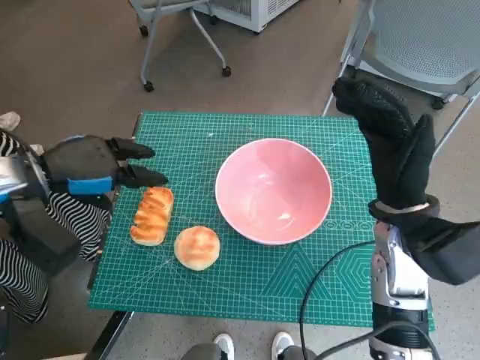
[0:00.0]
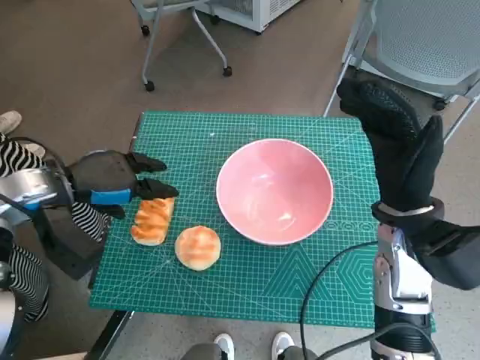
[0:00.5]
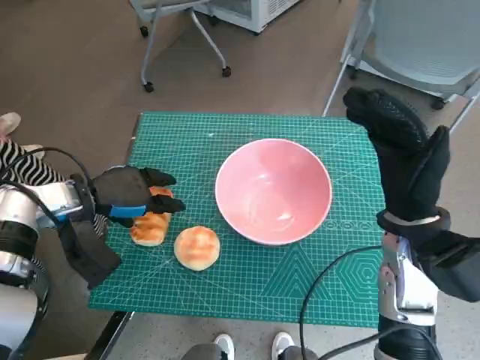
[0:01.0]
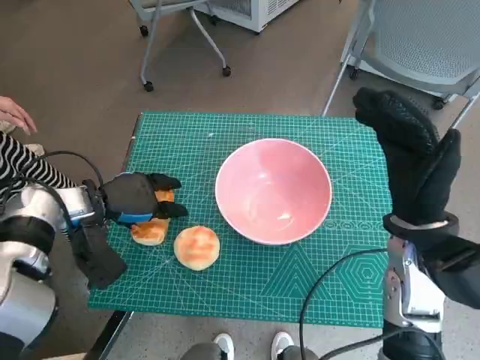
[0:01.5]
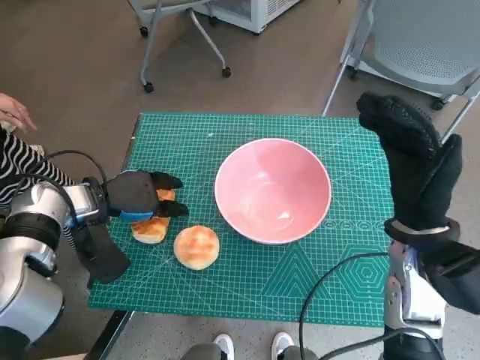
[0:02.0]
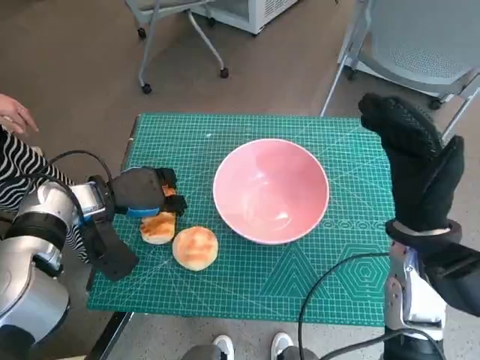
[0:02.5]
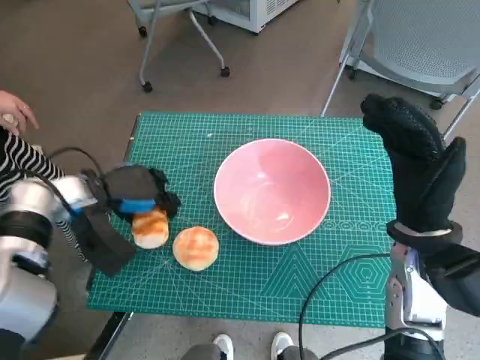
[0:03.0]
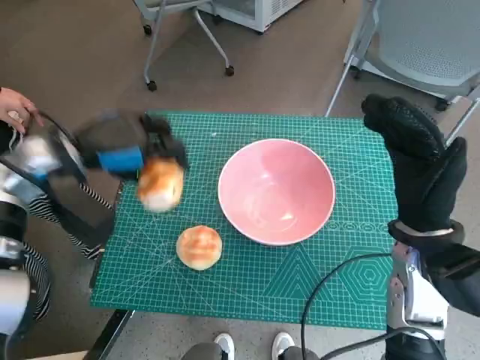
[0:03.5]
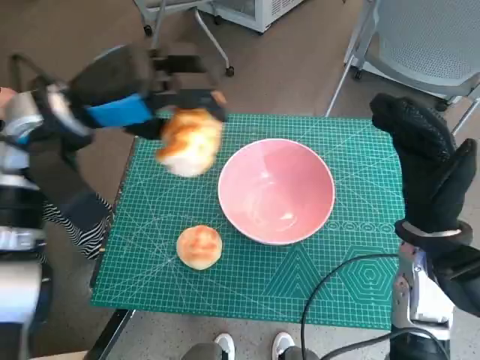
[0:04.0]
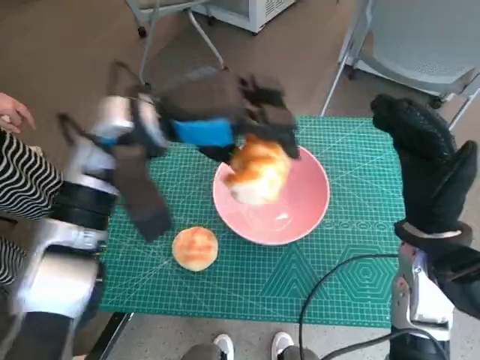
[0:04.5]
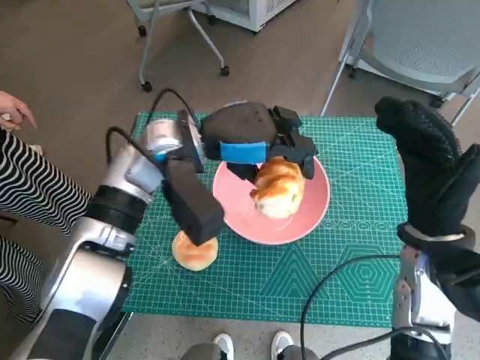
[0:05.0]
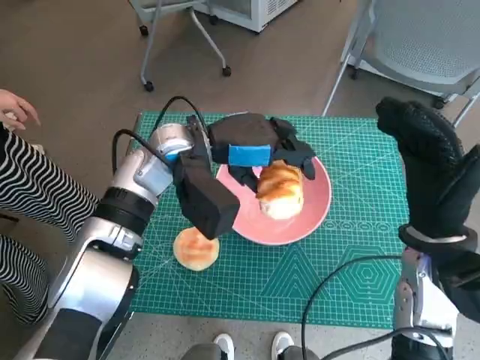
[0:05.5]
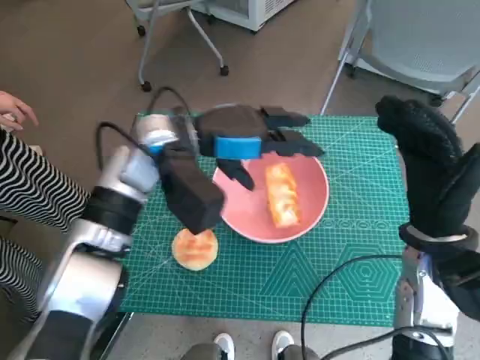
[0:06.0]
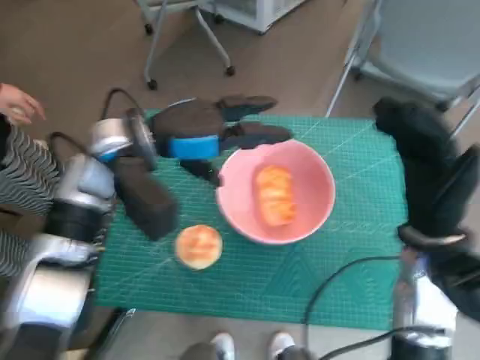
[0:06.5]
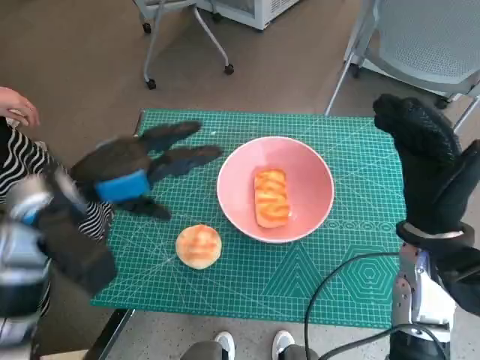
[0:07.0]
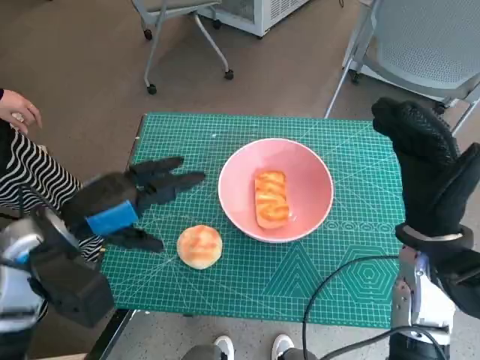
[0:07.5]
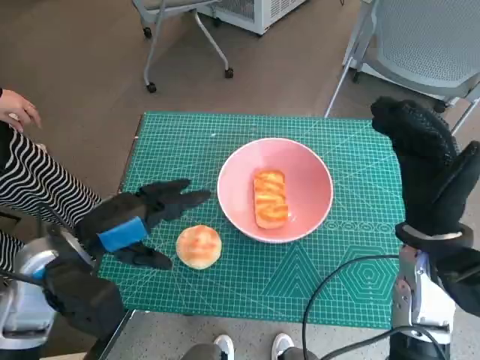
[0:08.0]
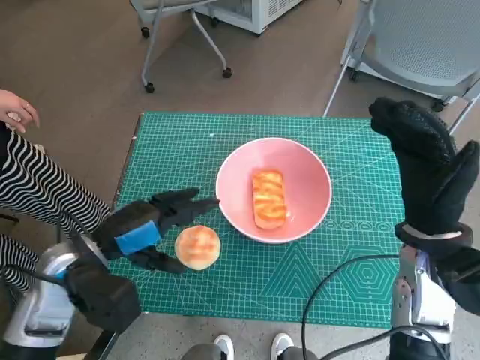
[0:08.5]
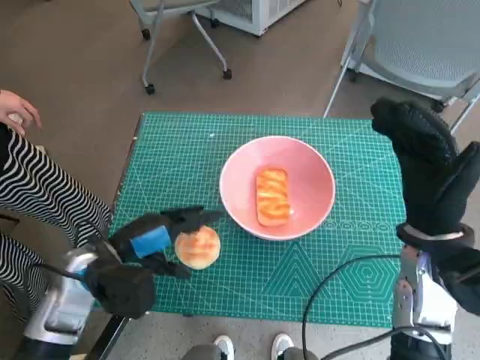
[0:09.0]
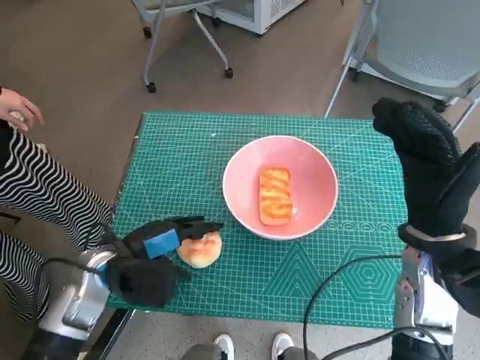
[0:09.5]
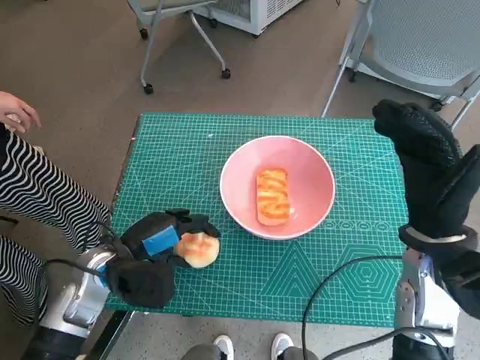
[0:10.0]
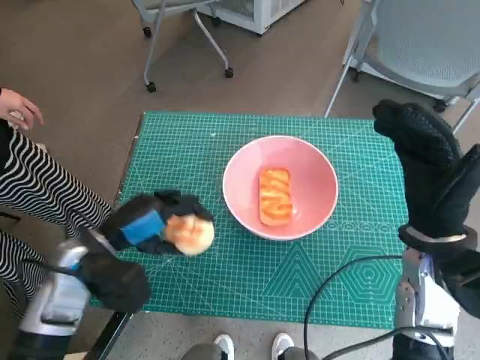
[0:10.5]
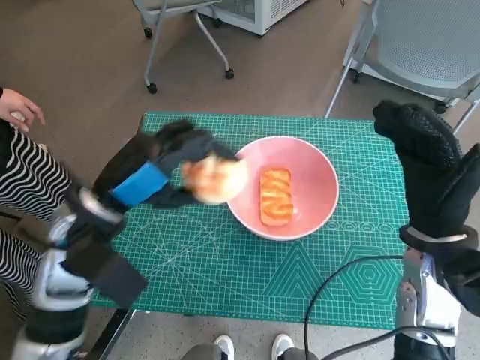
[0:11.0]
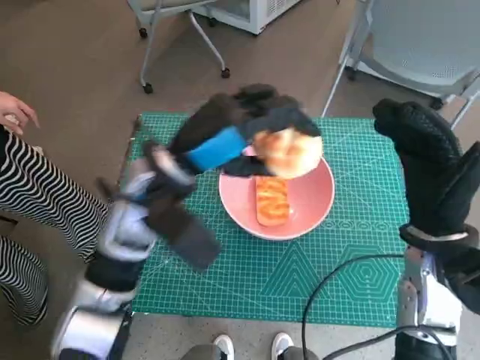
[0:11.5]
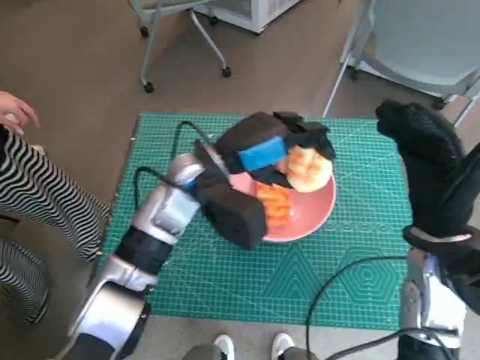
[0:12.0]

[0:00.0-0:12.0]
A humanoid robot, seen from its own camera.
Task of the whole recording: Push the bowl into the center of the table and put the bread into the bowl.
Step, 0:00.0 to 0:02.0: Grasp the long bread with left hand.
Step, 0:02.5 to 0:05.5: Place the long bread in pink bowl with left hand.
Step, 0:06.0 to 0:09.5: Grasp the round bread with left hand.
0:00.0 to 0:02.0: The left hand moves downward, approximately 10 cm.
0:02.0 to 0:04.0: The left hand heads upward, covering some 15 cm.
0:04.0 to 0:06.0: The left hand moves to the right and downward, some 10 cm.
0:06.0 to 0:08.0: The left hand shifts about 20 cm backward, to the left and downward.
0:08.0 to 0:10.0: The left hand moves downward, roughly 10 cm.
0:10.0 to 0:12.0: The left hand travels to the right, upward and forward by roughly 20 cm.

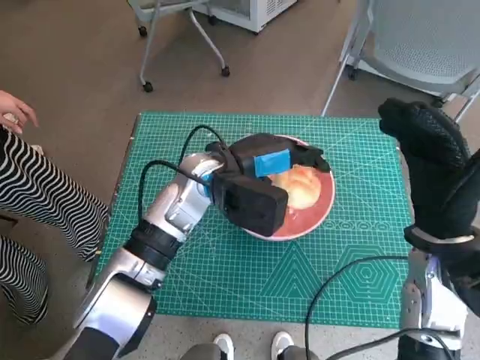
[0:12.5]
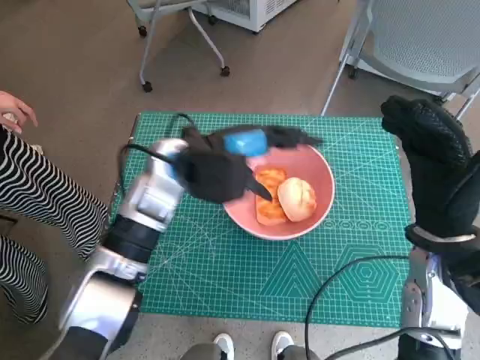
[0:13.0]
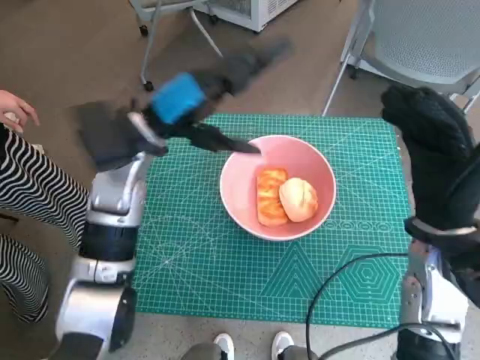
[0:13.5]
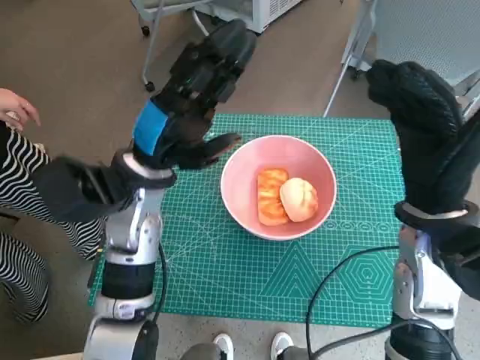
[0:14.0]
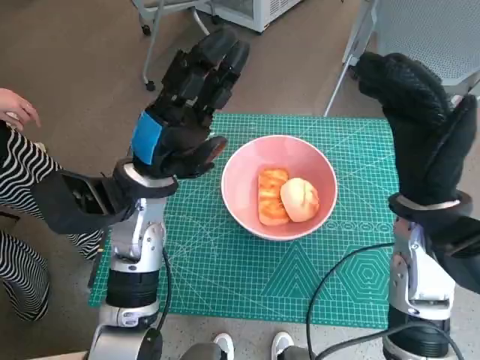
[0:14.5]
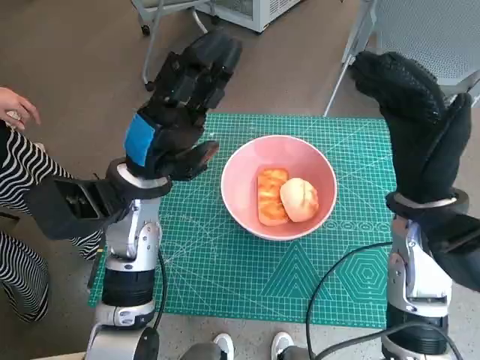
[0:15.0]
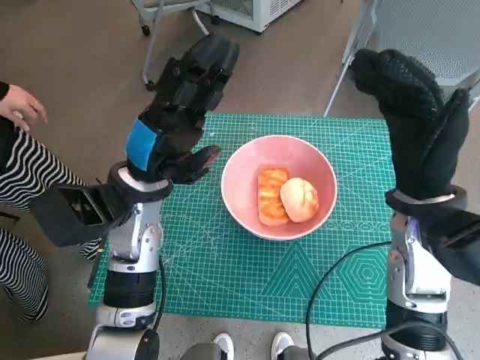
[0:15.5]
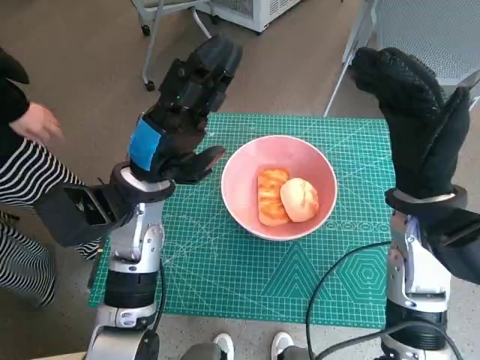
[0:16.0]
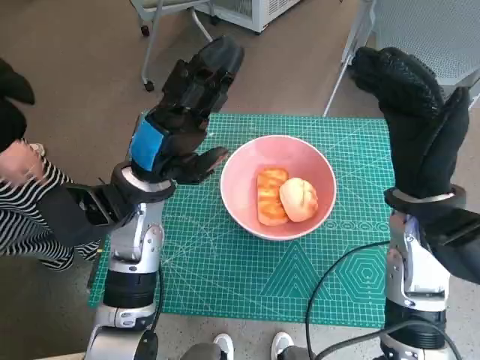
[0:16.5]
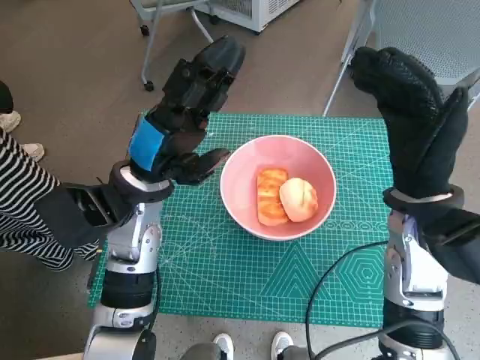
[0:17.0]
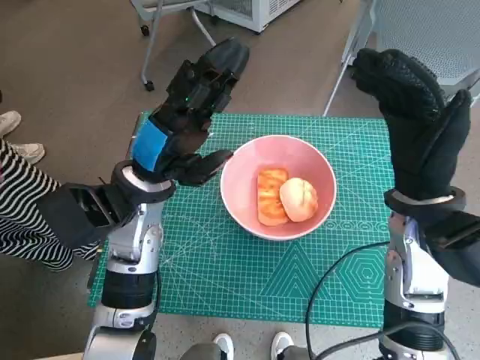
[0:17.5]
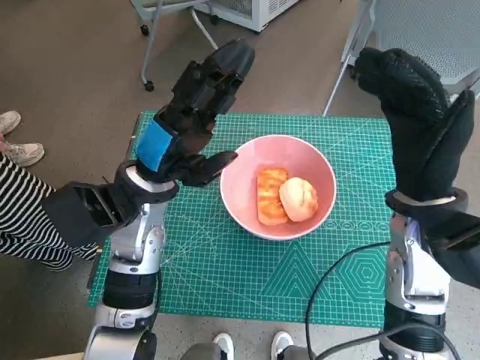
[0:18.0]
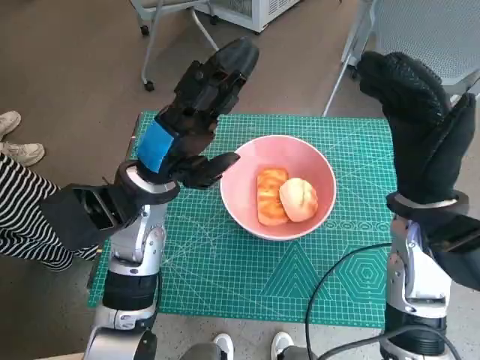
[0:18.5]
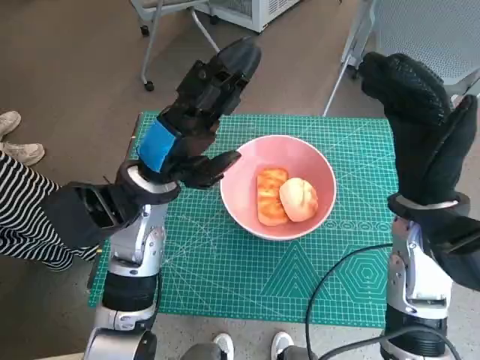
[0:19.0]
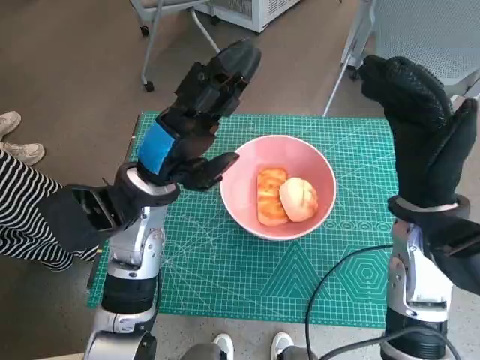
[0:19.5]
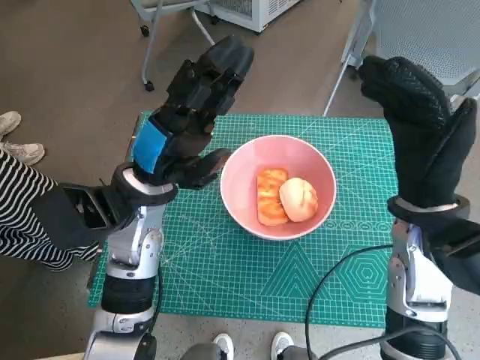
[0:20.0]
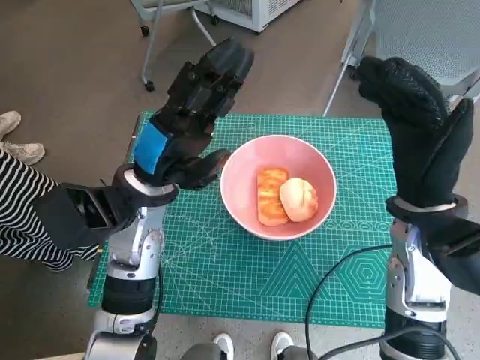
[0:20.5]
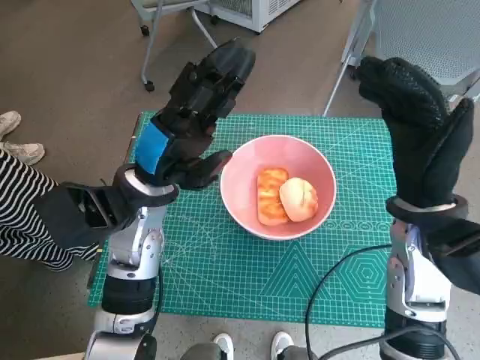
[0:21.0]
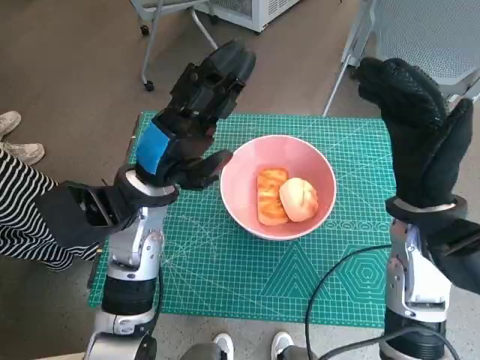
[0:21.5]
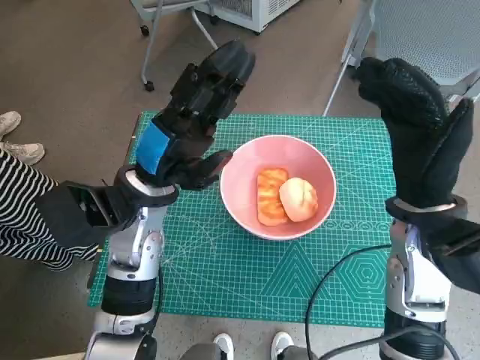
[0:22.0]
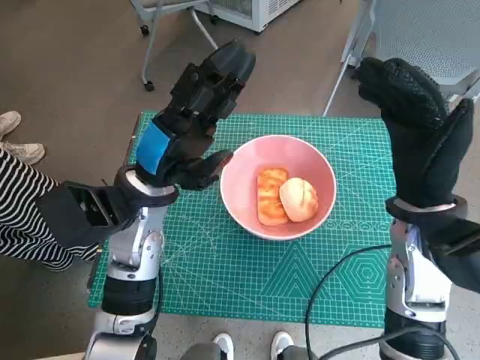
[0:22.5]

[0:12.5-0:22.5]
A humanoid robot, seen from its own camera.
Task of the whole recording: Push the bowl into the center of the table and put the bread into the bowl.
0:12.5 to 0:14.5: The left hand shifts some 10 cm to the left.
0:14.5 to 0:16.5: The hands make only small movements.
0:16.5 to 0:22.5: The two hands keep their place.

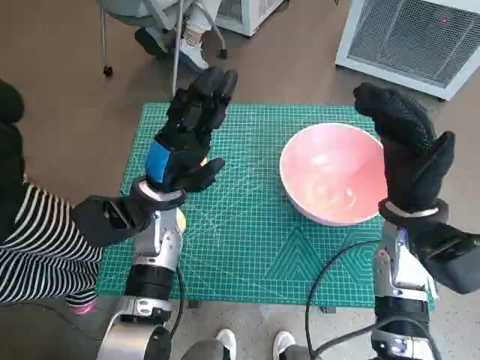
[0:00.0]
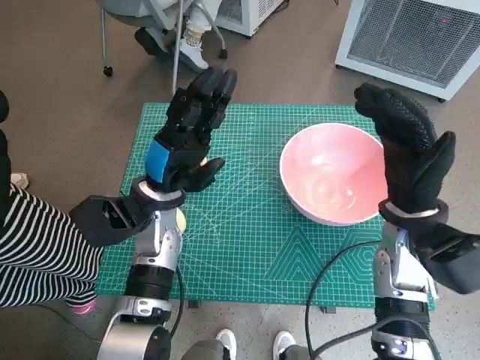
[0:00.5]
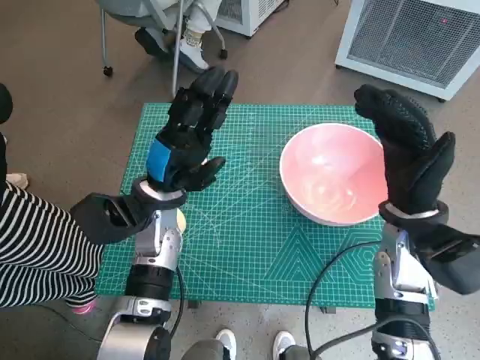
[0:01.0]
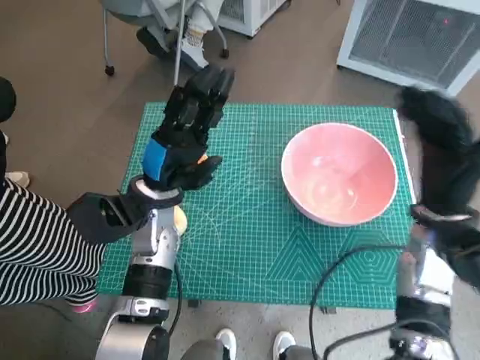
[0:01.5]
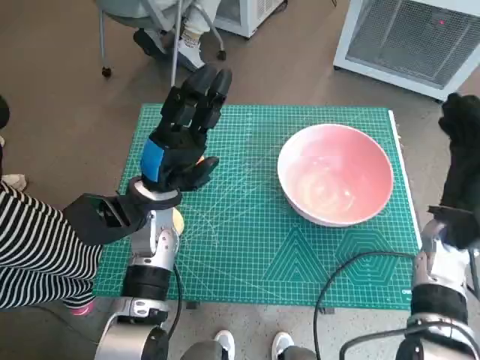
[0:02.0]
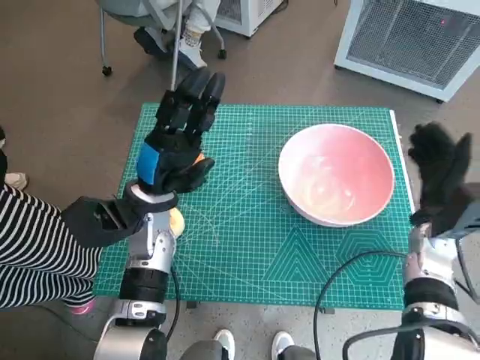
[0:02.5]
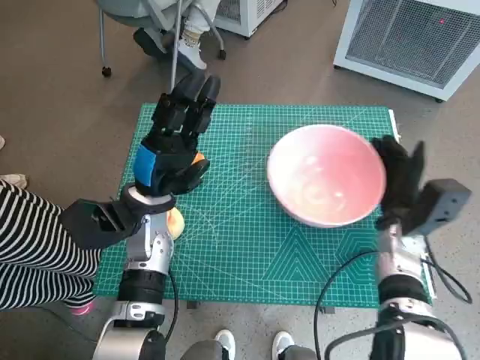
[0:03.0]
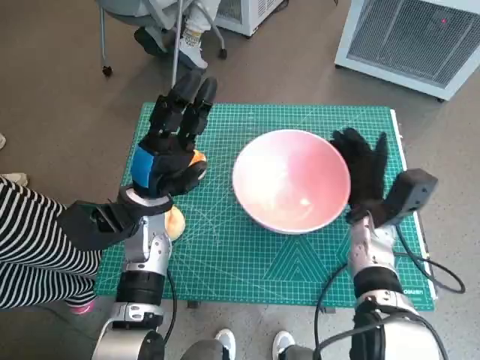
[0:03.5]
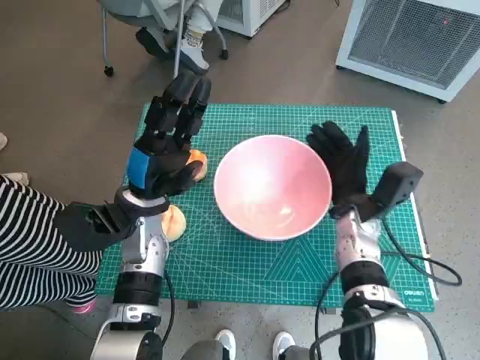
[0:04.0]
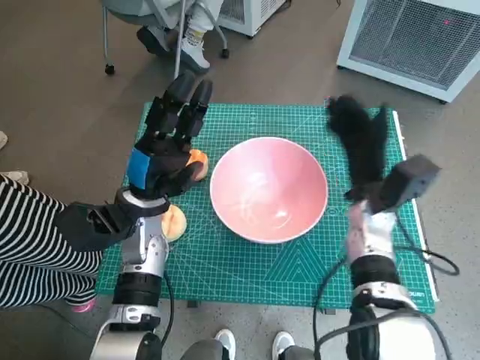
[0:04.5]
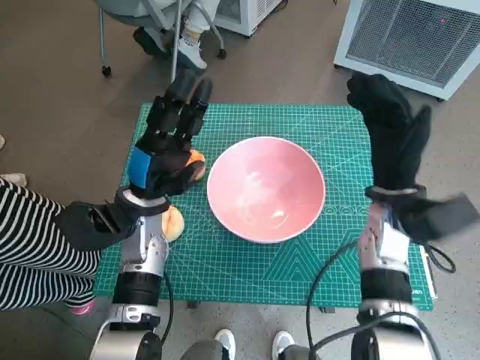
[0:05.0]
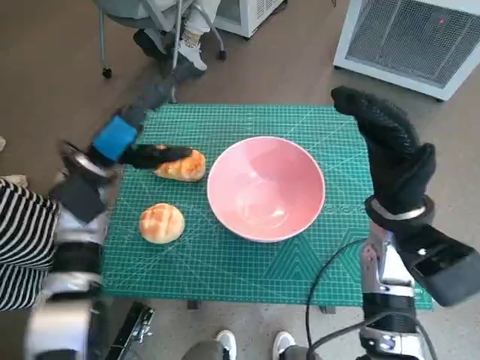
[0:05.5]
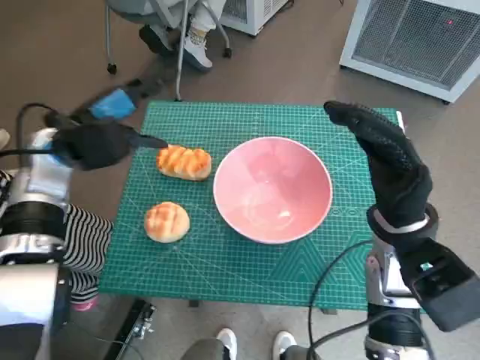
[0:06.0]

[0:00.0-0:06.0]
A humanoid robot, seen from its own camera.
Task of the whole recording: Push the bowl into the center of the table and put the bread into the bowl.
Step, 0:00.0 to 0:04.0: Move the pink bowl to the center of table with right hand.
0:02.0 to 0:04.0: The right hand shifts some 10 cm to the left and downward.
0:04.0 to 0:06.0: The right hand heads upward and backward, covering about 10 cm. Meanwhile the left hand goes about 10 cm upward and to the left.
